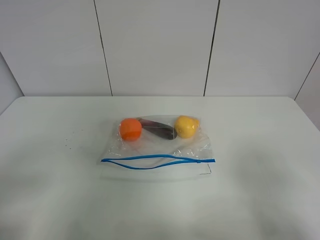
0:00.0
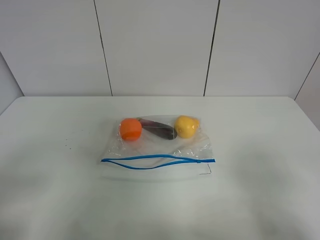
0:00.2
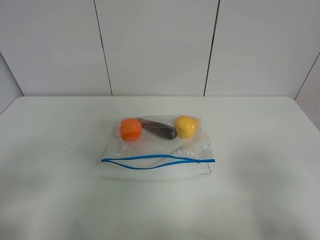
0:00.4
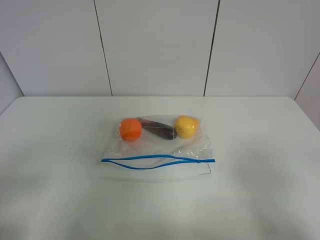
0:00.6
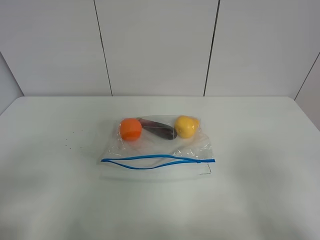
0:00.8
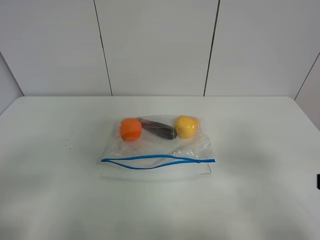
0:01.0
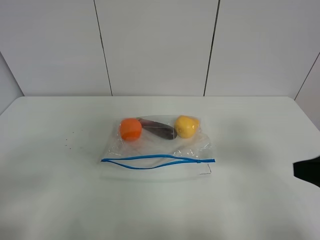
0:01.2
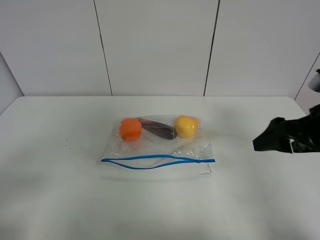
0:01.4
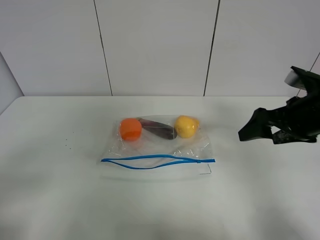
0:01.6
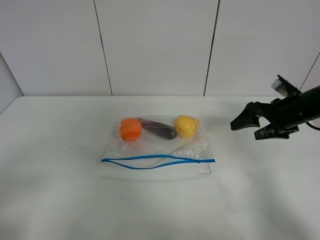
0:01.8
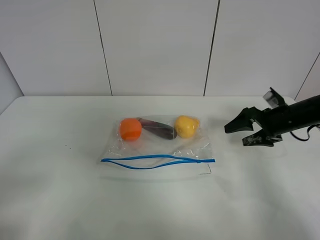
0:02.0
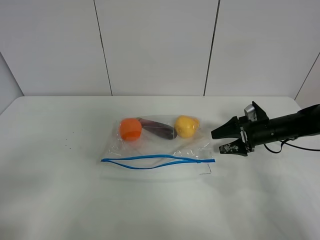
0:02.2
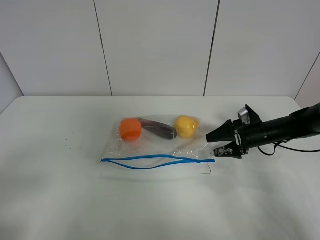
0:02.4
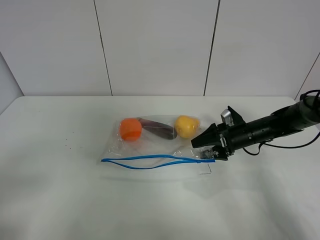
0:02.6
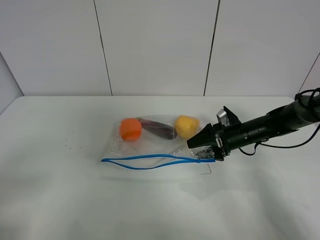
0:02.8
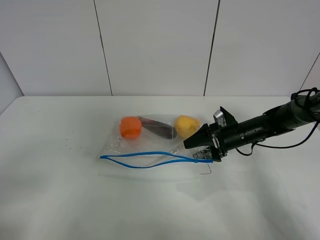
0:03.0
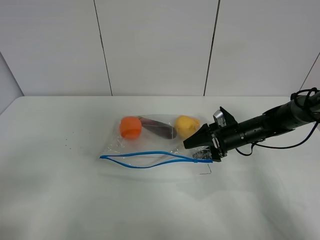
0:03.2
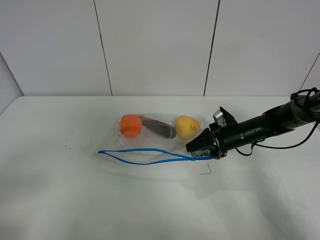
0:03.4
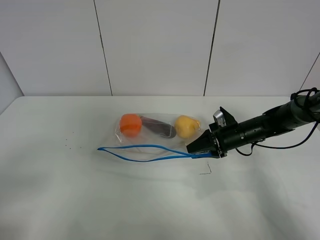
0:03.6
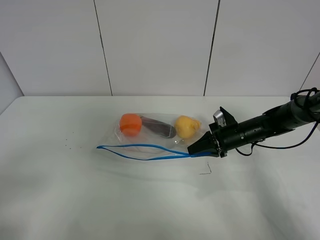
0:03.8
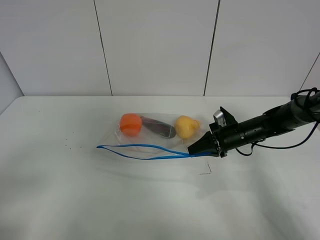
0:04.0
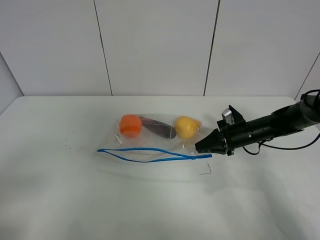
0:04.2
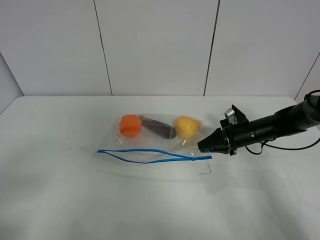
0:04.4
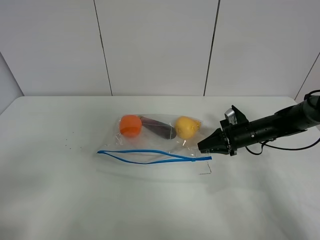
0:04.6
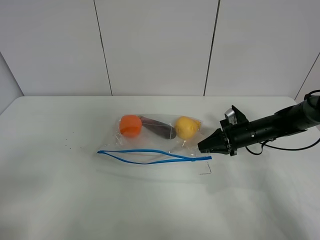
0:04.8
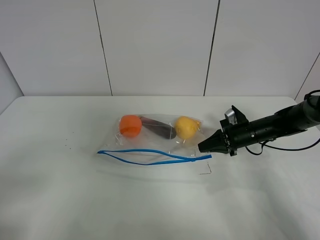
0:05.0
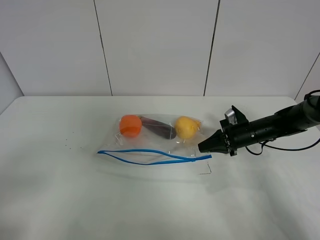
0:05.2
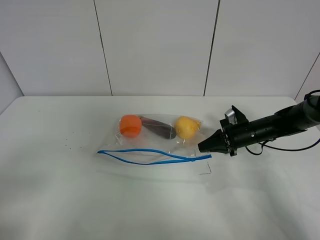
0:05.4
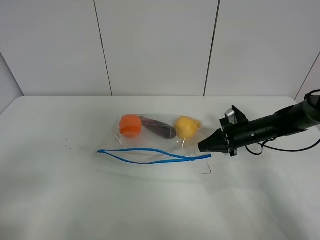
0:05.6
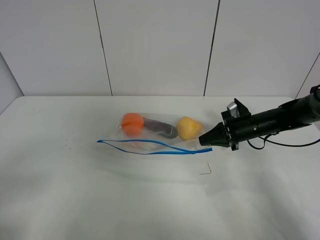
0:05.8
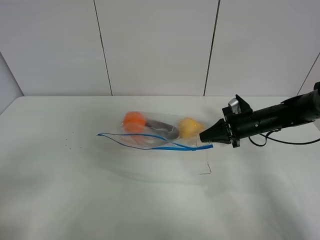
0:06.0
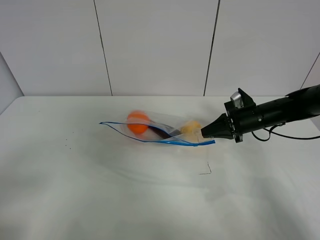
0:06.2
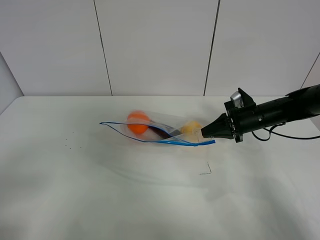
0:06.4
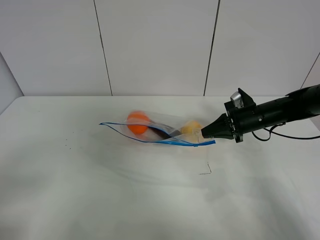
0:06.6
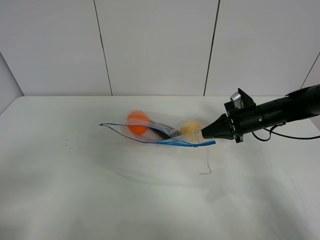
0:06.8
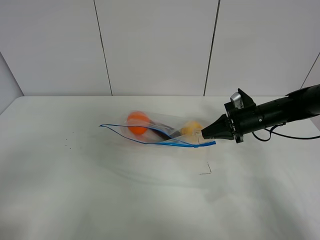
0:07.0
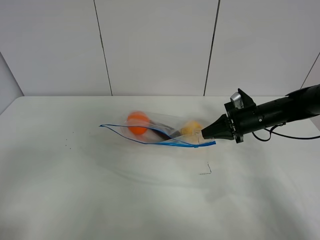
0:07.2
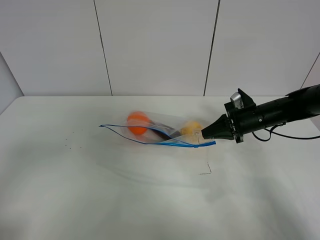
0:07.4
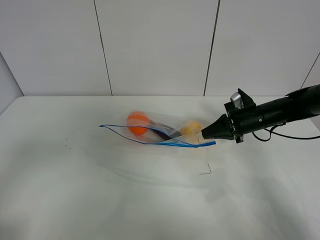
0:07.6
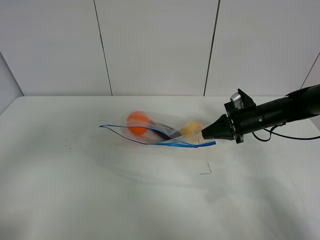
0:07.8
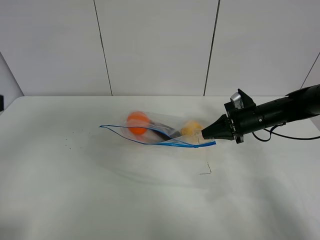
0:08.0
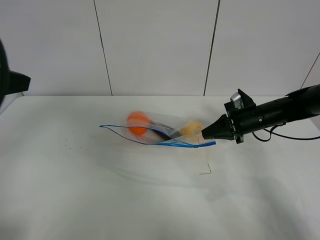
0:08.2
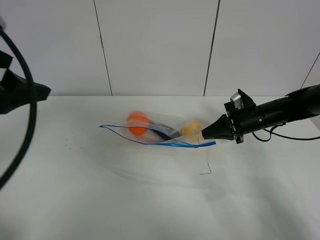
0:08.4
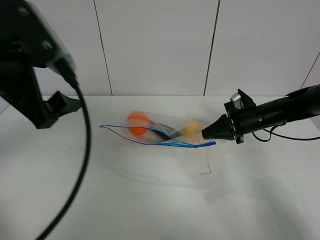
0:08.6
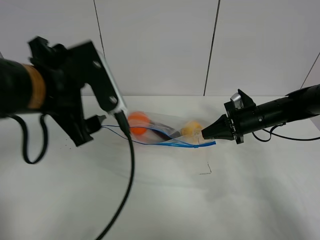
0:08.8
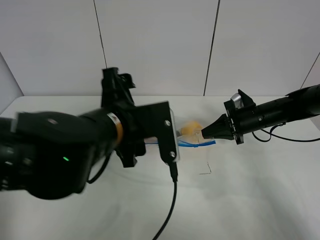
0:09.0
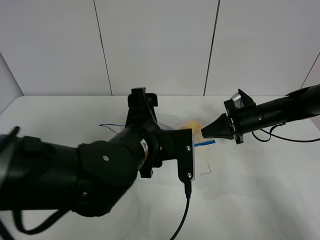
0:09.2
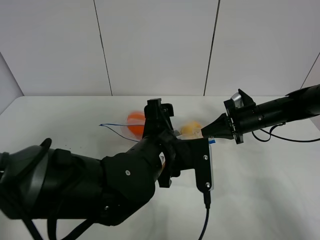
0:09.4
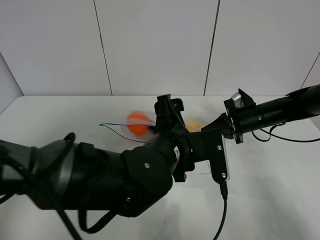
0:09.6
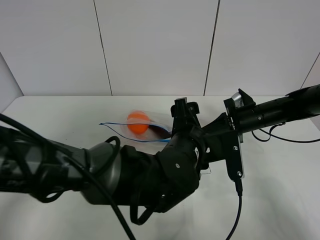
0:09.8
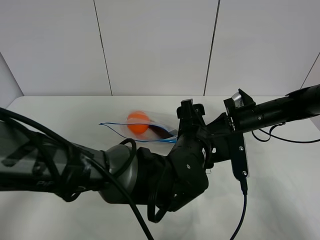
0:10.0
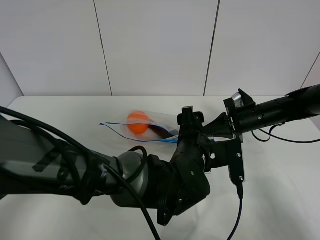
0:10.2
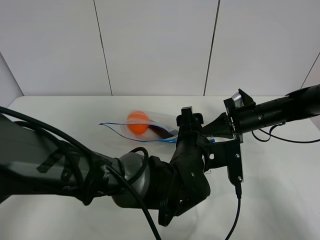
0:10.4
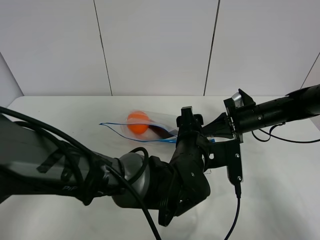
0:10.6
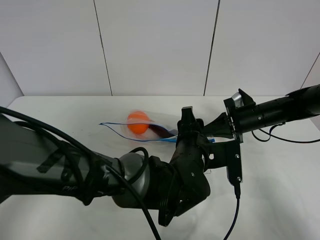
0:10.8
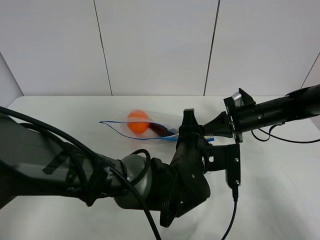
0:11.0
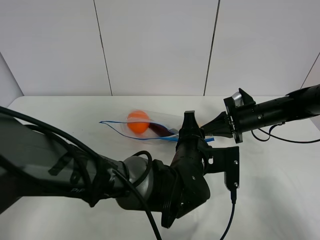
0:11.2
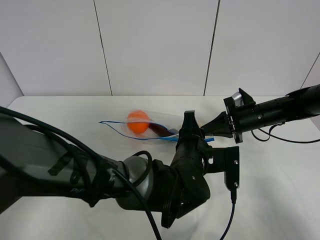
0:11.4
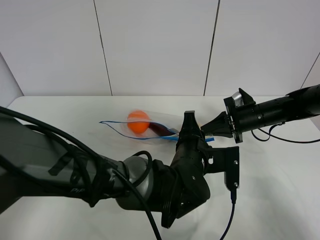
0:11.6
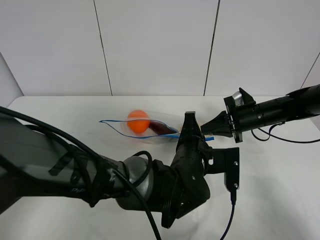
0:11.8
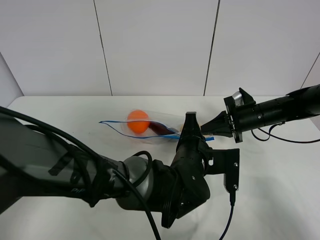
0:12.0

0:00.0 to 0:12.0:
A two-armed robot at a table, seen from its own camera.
Step, 0:00.0 to 0:05.2: Grasp the fruit bag with right gripper.
Step, 0:05.4 to 0:06.8: Lift the fruit bag with your right gripper.
0:00.0 to 0:01.6: The right gripper is displaced forward by about 25 cm.
0:01.6 to 0:03.0: The right gripper travels downward and forward by some 20 cm.
0:03.0 to 0:04.4: The right gripper closes up.
0:04.4 to 0:06.0: There are only small adjustments of the grippers.
0:07.6 to 0:09.0: The left gripper shifts some 30 cm to the right and forward.
0:09.0 to 0:10.4: The left gripper moves to the right and downward, some 15 cm.
0:10.4 to 0:12.0: The left gripper closes.

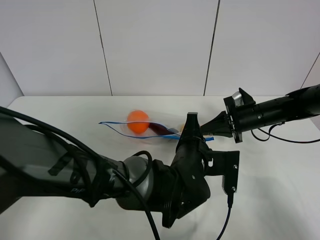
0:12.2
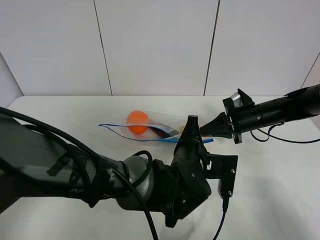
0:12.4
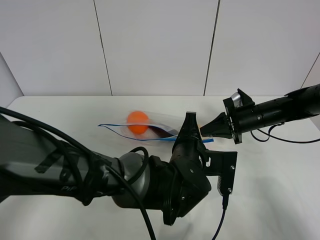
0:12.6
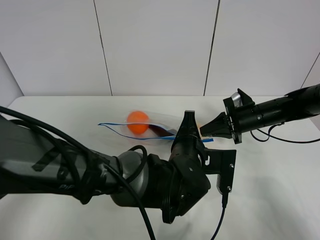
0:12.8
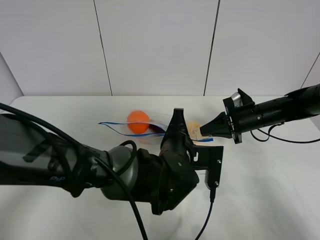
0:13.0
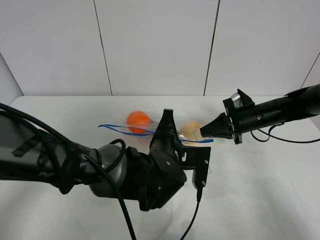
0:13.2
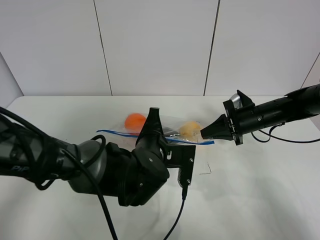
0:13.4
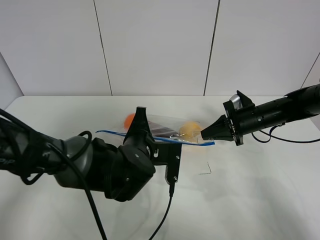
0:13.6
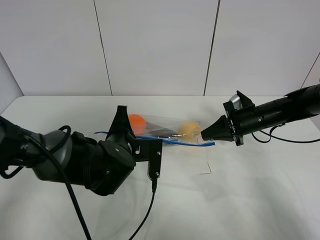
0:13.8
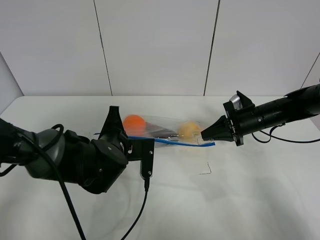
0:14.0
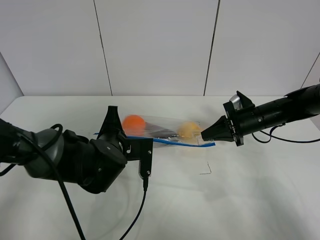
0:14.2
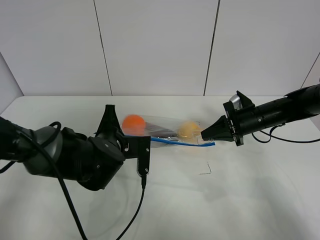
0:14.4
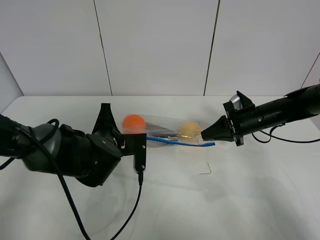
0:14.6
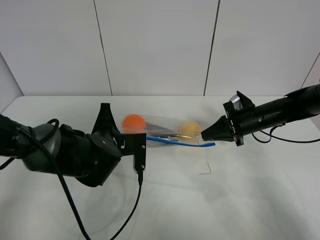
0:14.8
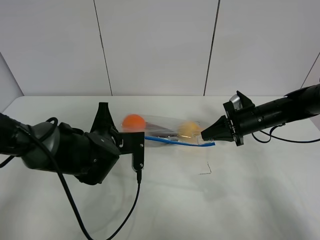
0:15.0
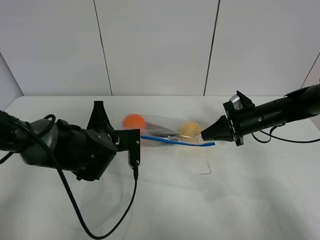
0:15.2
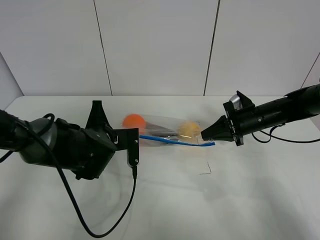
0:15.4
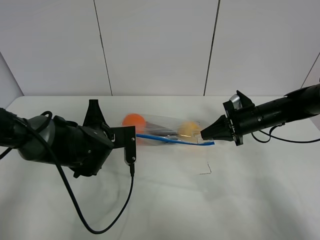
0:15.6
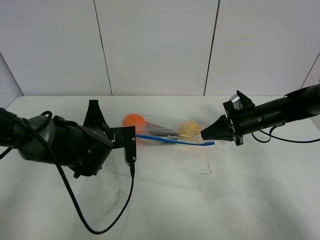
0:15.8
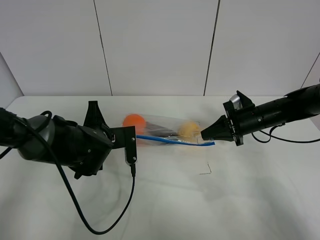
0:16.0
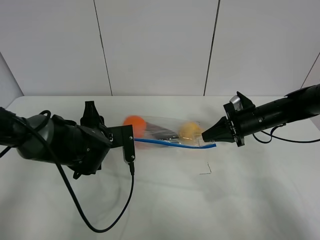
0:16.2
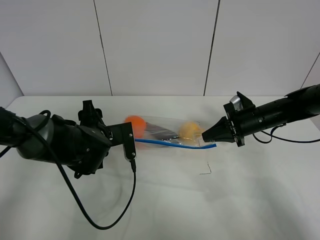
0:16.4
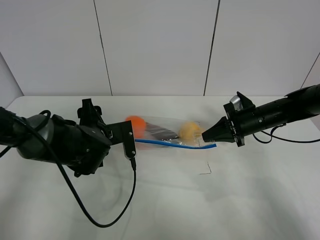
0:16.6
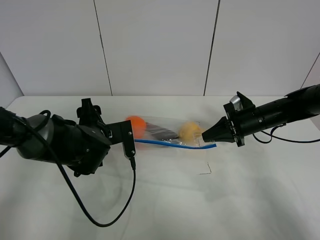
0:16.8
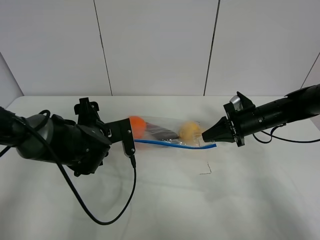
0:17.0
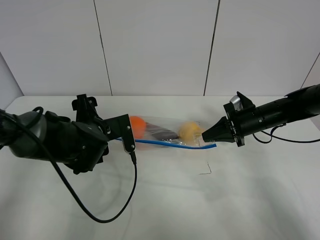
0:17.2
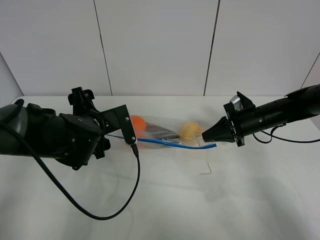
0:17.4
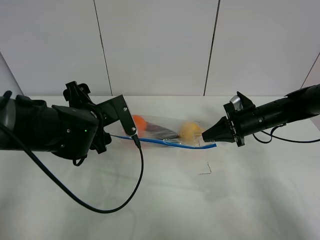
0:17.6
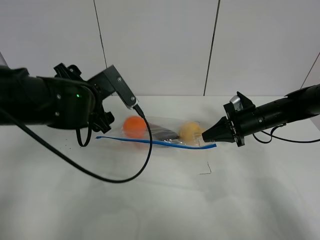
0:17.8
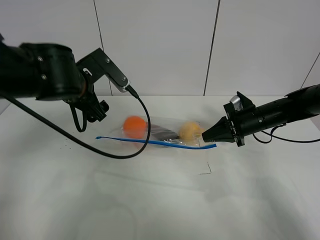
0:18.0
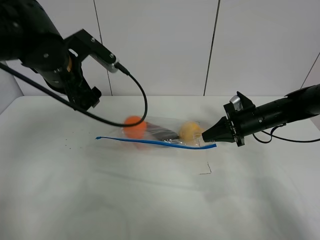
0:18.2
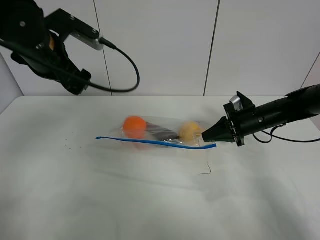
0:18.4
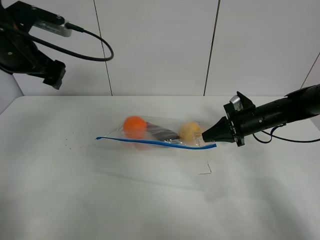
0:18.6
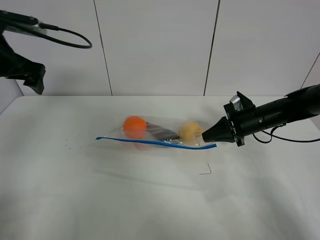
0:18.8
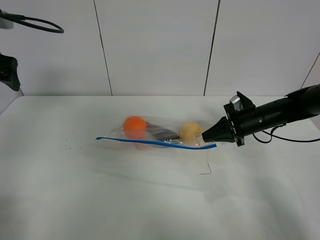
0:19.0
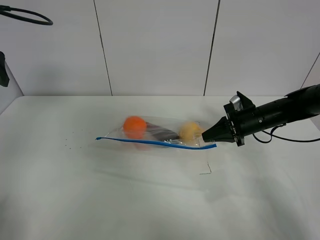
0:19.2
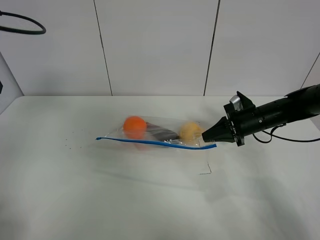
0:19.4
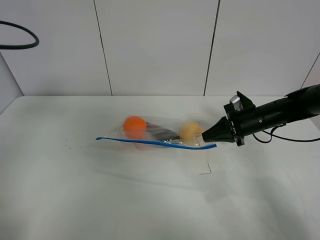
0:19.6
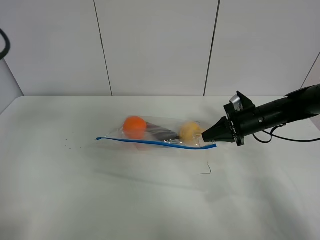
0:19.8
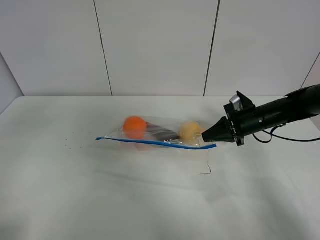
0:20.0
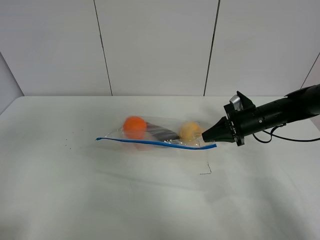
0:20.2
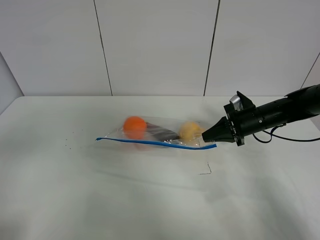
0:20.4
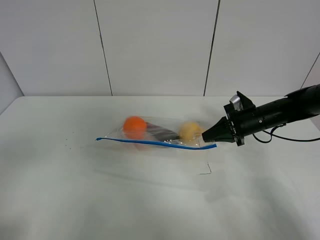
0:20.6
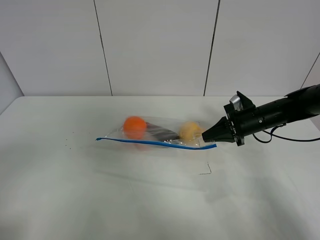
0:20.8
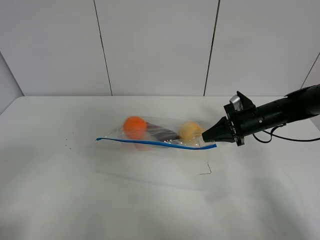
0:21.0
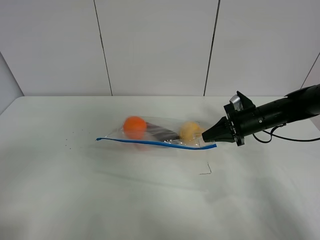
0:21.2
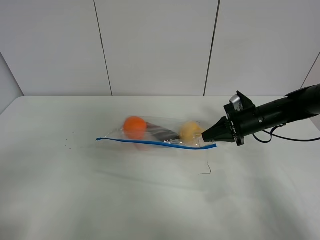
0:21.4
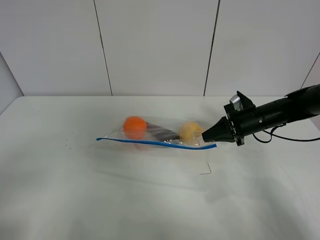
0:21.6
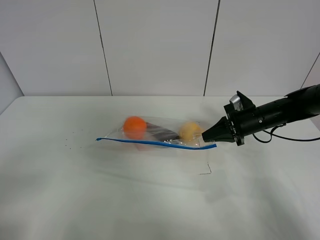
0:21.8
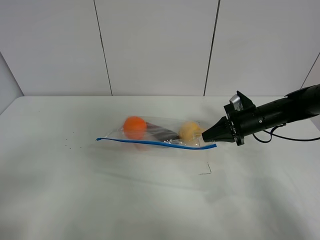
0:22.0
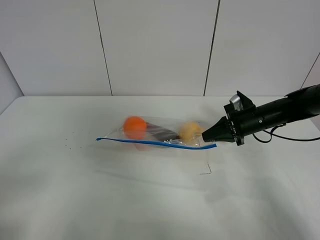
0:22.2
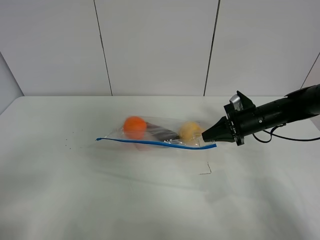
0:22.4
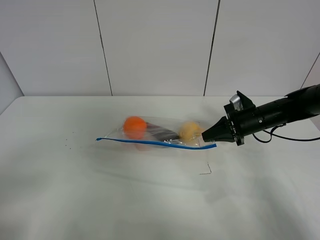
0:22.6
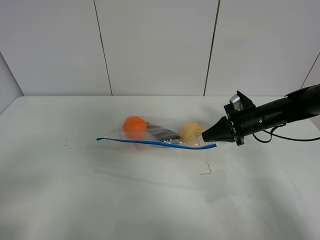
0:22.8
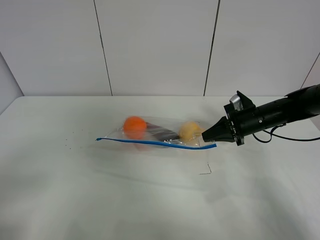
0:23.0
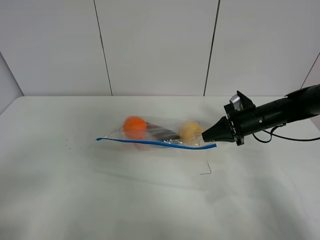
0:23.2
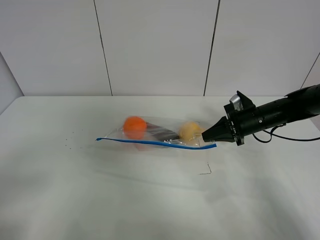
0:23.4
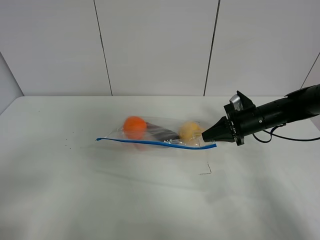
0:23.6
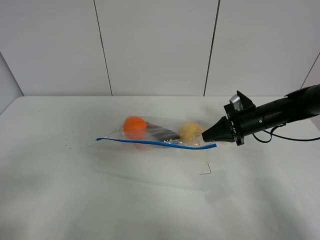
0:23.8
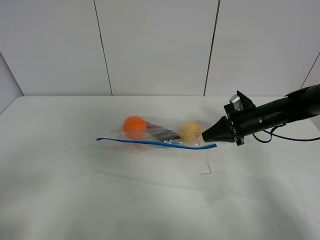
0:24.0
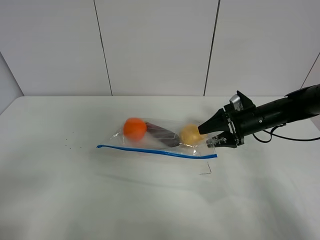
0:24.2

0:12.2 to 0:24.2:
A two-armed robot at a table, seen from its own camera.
Step, 0:12.2 to 0:16.6: Pull the fruit bag with left gripper.
0:12.2 to 0:13.8: The left gripper goes roughly 15 cm to the left.
0:13.8 to 0:15.2: The grippers make only small movements.
0:15.2 to 0:16.6: The left gripper opens its fingers.
0:16.6 to 0:18.2: The left gripper goes roughly 15 cm upward.
0:18.2 to 0:19.8: The left gripper moves to the left and backward, roughly 25 cm.
0:22.6 to 0:24.2: The right gripper opens its fingers.
